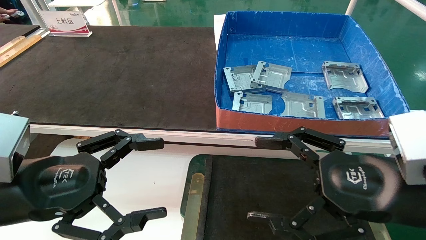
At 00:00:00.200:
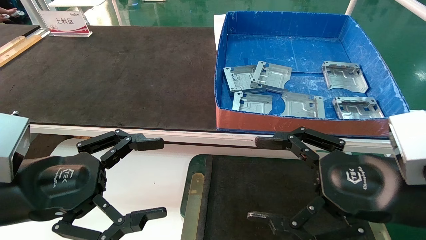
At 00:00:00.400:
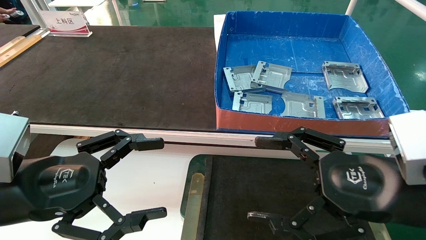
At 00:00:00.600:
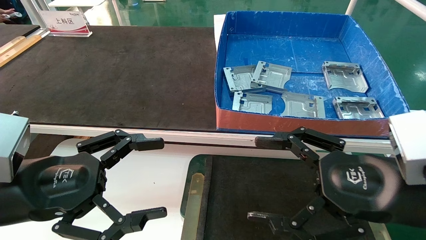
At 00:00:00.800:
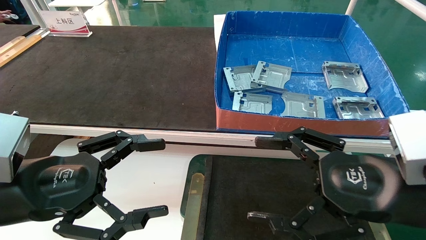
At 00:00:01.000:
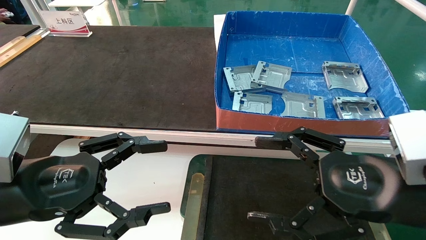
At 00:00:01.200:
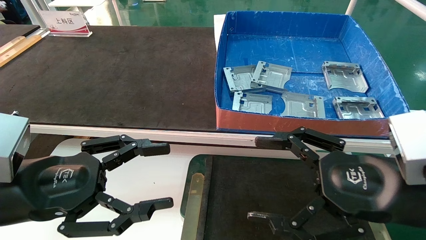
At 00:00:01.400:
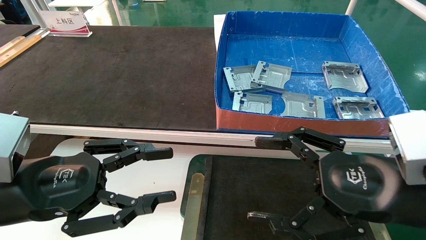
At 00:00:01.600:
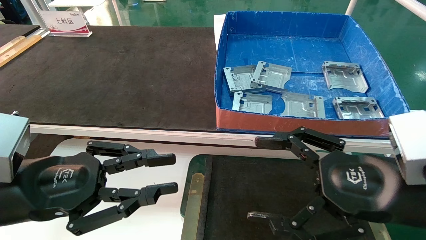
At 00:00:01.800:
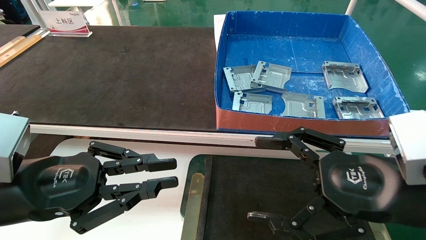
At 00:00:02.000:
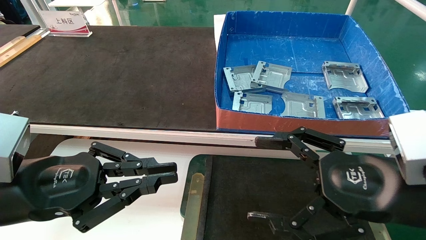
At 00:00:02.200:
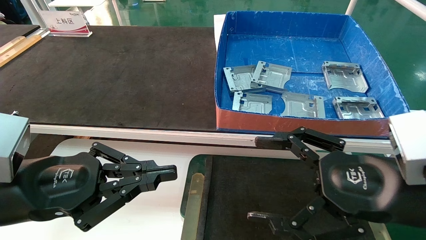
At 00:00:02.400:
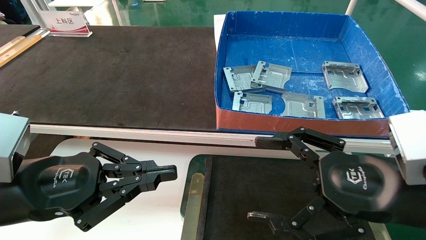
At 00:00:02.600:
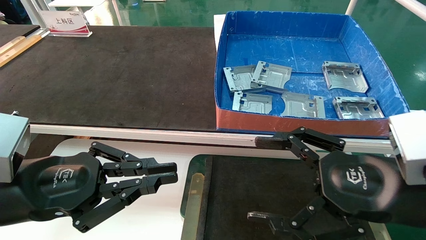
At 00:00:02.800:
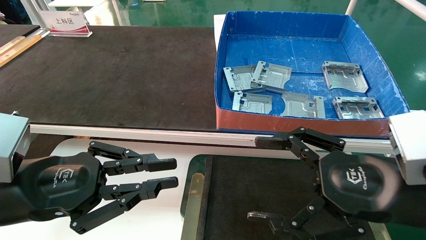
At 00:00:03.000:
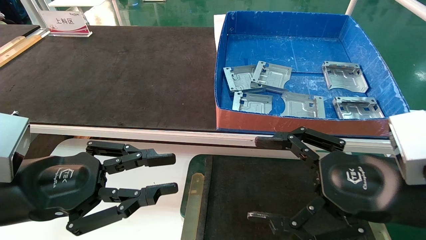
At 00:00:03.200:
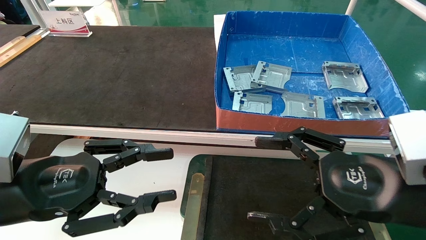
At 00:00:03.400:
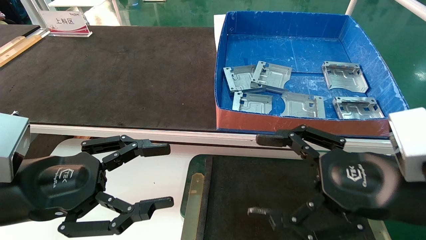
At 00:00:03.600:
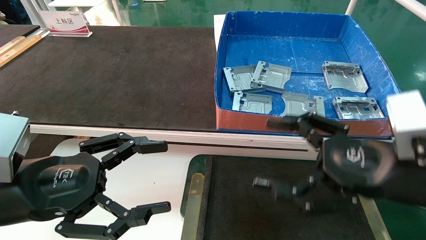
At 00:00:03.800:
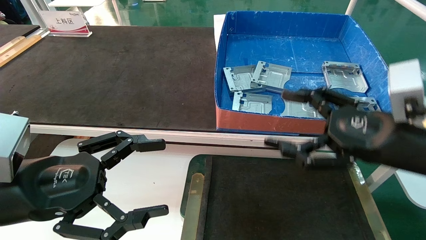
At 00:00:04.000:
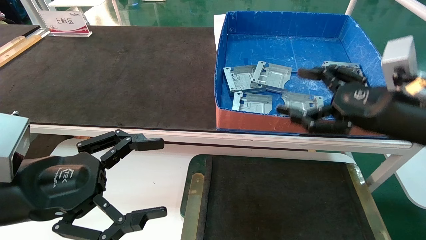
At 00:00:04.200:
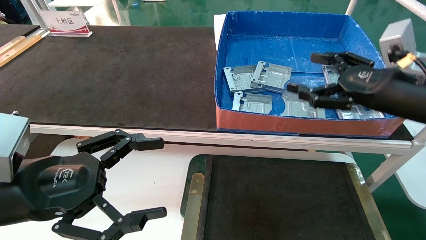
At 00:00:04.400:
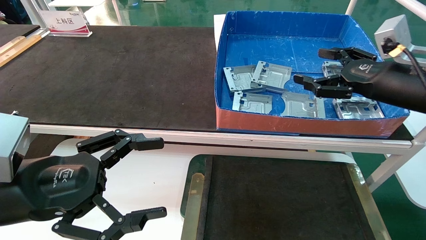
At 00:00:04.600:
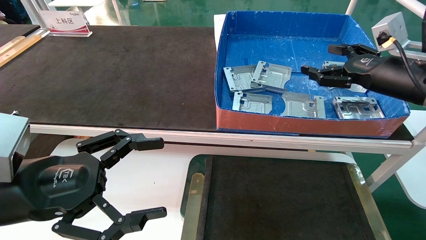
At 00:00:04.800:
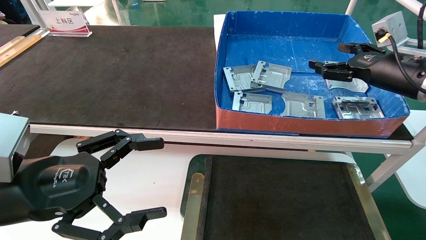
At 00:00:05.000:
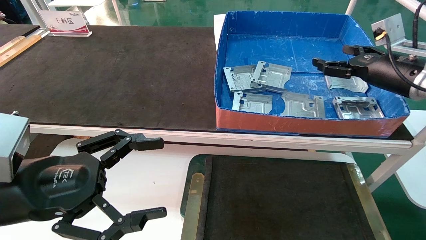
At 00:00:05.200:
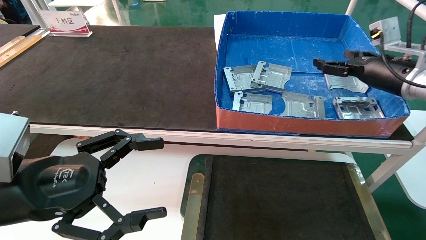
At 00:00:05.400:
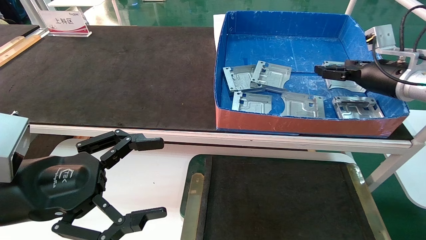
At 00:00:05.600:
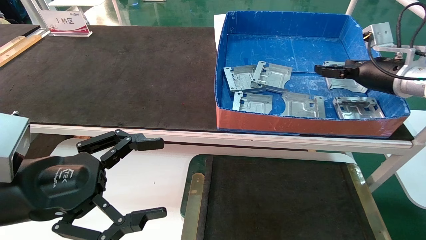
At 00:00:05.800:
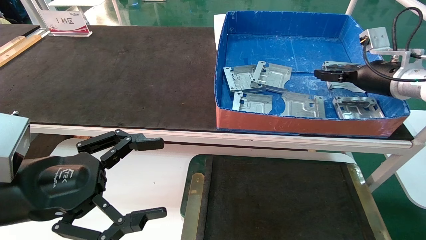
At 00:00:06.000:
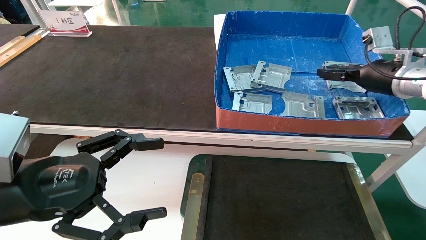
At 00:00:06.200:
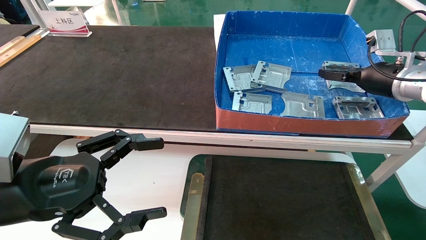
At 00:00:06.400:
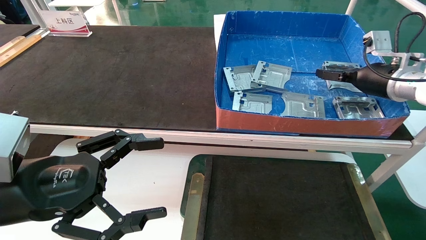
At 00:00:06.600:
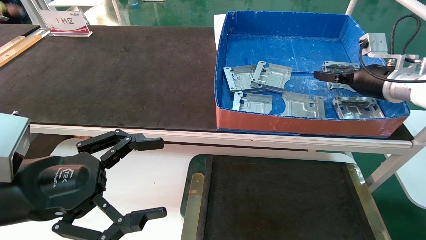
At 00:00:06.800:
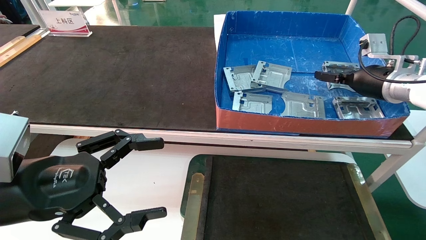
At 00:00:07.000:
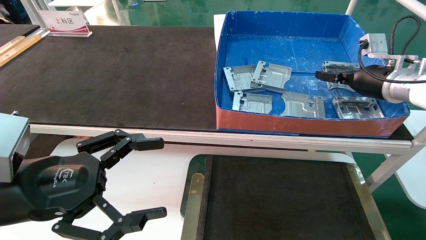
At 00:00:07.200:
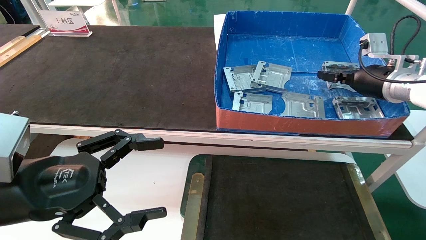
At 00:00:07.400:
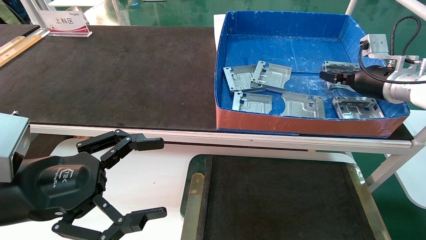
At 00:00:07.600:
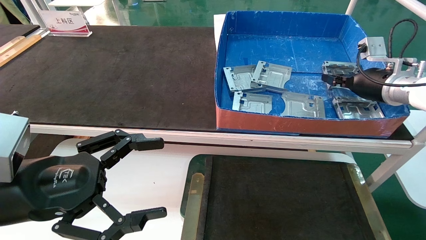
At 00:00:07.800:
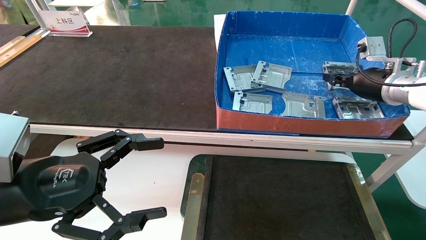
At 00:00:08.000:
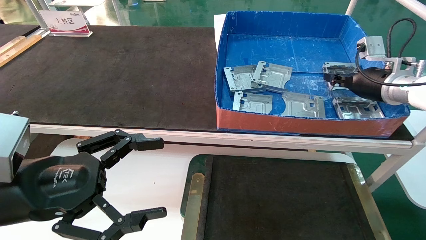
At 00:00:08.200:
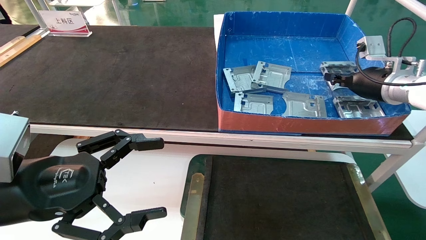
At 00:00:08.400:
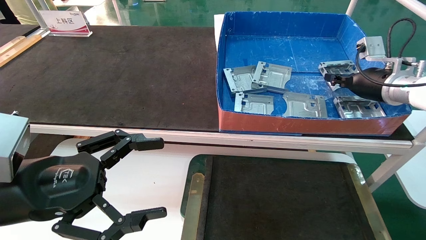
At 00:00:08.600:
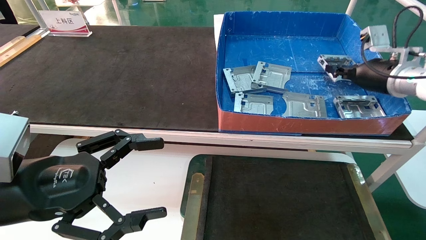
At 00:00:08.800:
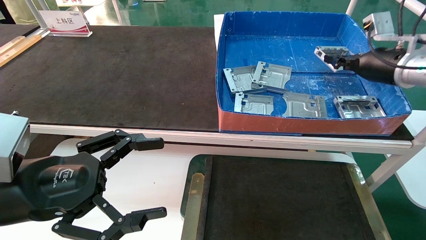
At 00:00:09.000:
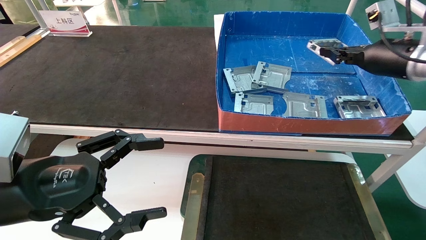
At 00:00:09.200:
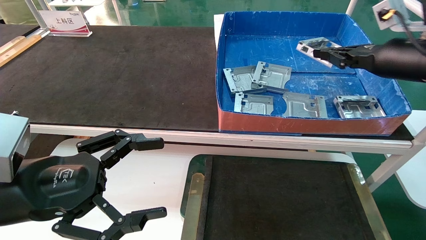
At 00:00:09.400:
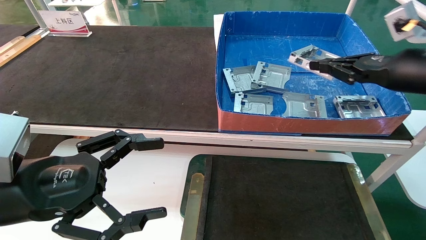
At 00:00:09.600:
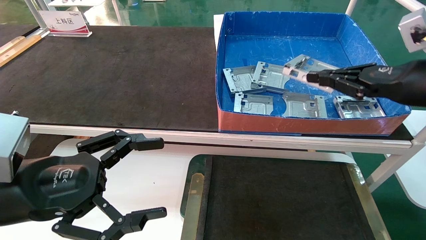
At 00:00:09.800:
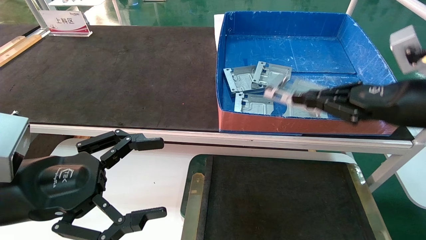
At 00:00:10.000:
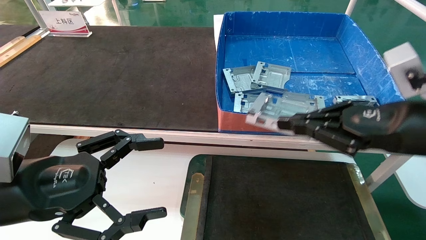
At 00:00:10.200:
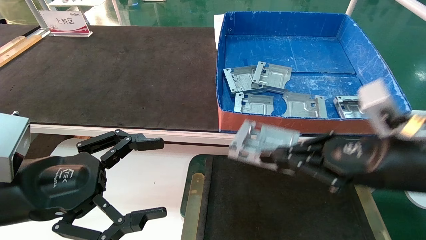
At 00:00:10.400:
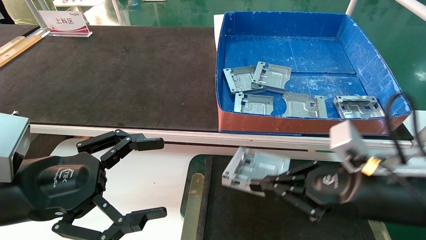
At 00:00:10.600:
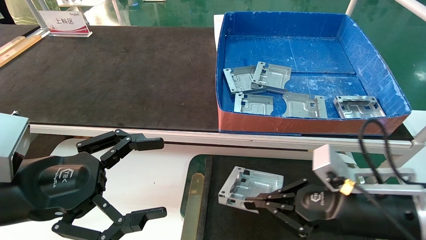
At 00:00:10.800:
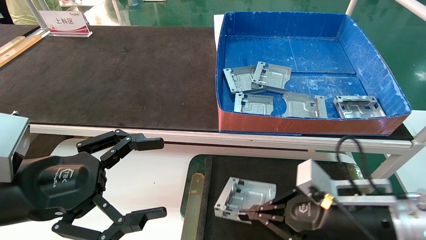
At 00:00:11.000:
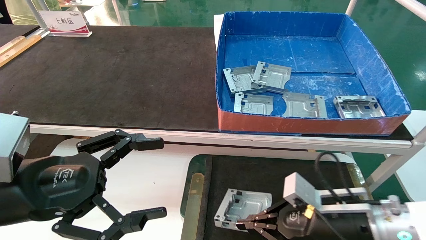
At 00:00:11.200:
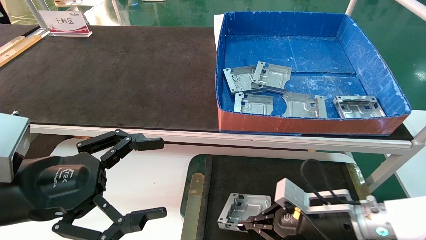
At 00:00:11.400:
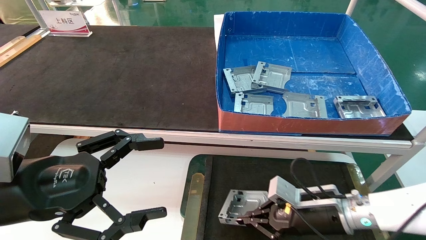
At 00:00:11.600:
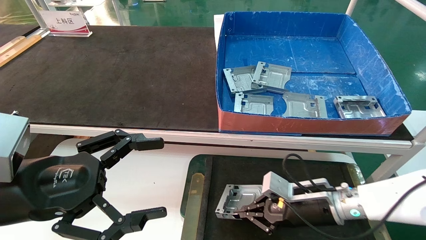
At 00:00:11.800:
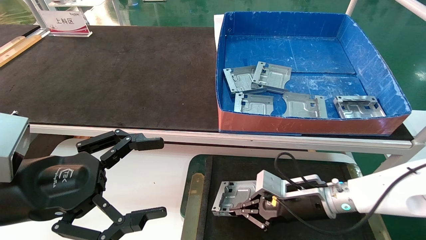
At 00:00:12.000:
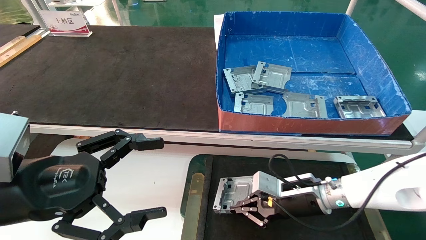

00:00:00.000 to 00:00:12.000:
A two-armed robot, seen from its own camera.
Task of the whole recording: pick up parts and place them into a black container.
Step, 00:00:03.800 to 00:00:08.200: Pick up the hard drive bracket from the feeding area.
00:00:00.000 to 00:00:01.600: The left gripper closes its fingers.
00:00:01.600 to 00:00:03.000: The two grippers keep their place.
00:00:03.000 to 00:00:04.400: The right gripper moves forward, to the right and upward, approximately 20 cm. The left gripper opens its fingers.
00:00:04.400 to 00:00:06.000: The right gripper goes roughly 10 cm forward.
00:00:06.000 to 00:00:07.600: The right gripper closes.
00:00:07.600 to 00:00:09.000: The right gripper goes some 5 cm upward and backward.
00:00:09.000 to 00:00:10.400: The right gripper shifts some 25 cm backward, downward and to the left.
00:00:10.400 to 00:00:12.000: The right gripper travels forward and downward by about 20 cm.

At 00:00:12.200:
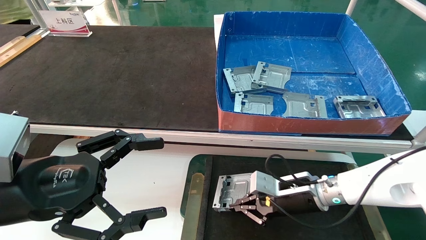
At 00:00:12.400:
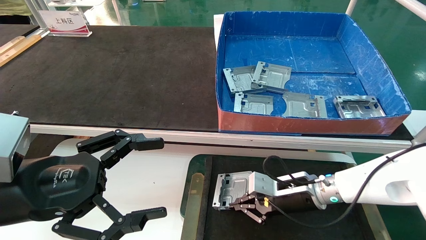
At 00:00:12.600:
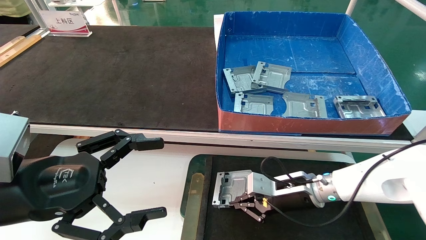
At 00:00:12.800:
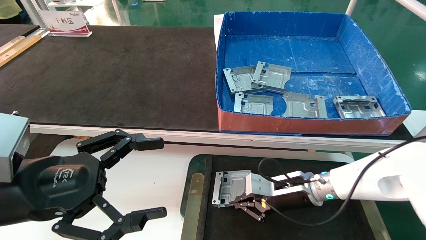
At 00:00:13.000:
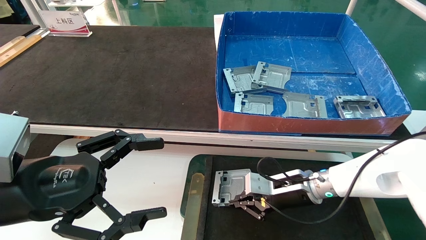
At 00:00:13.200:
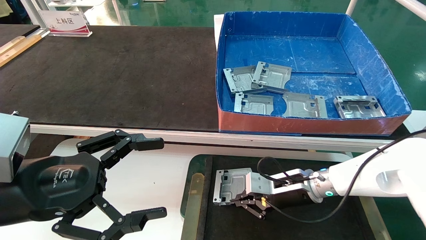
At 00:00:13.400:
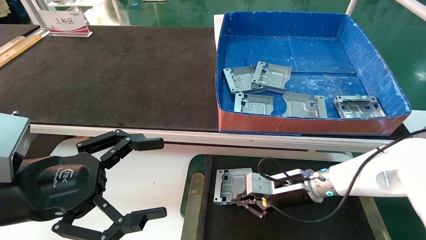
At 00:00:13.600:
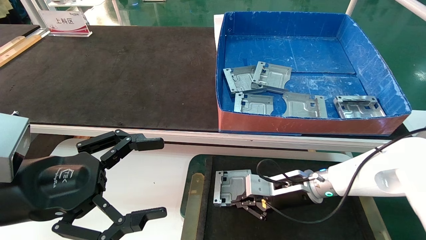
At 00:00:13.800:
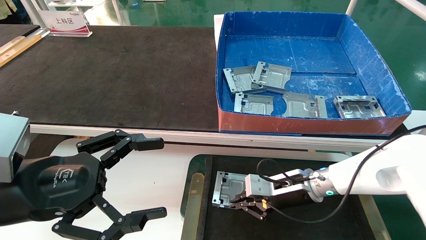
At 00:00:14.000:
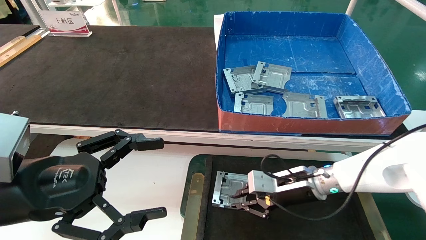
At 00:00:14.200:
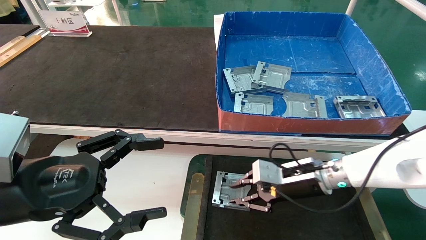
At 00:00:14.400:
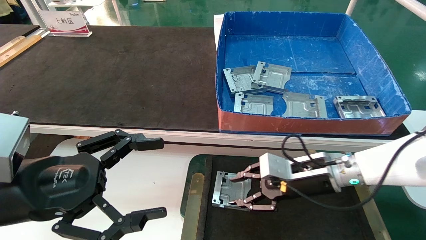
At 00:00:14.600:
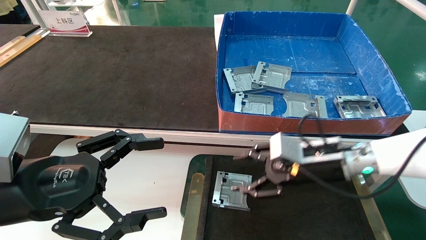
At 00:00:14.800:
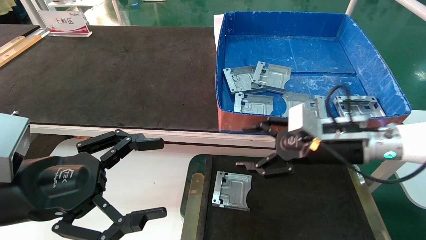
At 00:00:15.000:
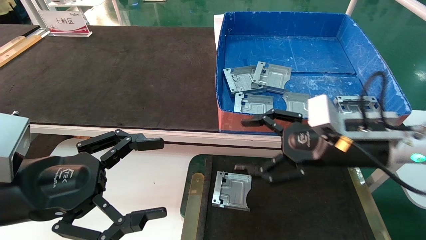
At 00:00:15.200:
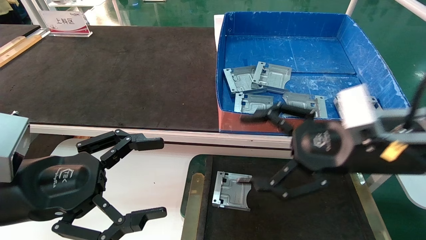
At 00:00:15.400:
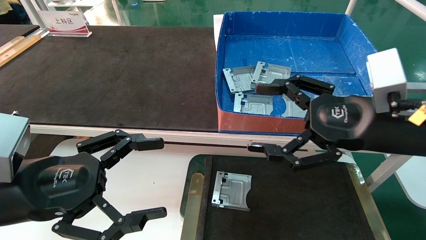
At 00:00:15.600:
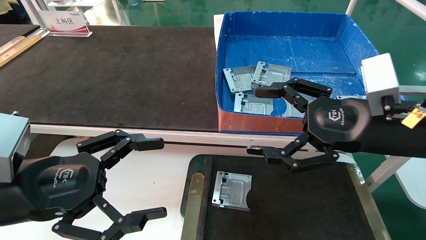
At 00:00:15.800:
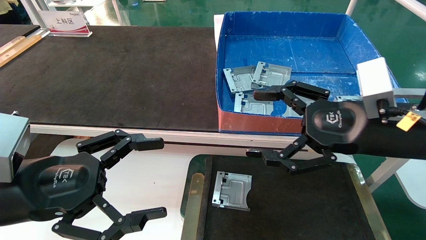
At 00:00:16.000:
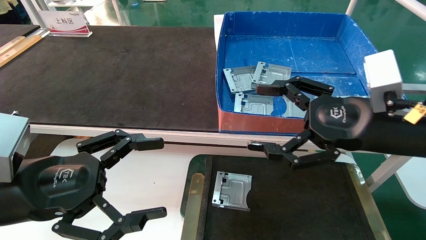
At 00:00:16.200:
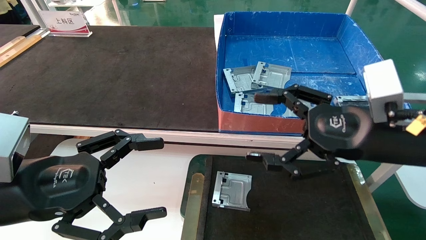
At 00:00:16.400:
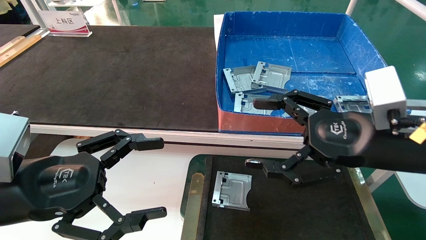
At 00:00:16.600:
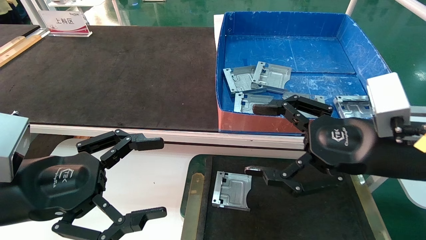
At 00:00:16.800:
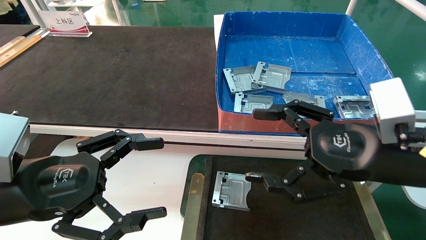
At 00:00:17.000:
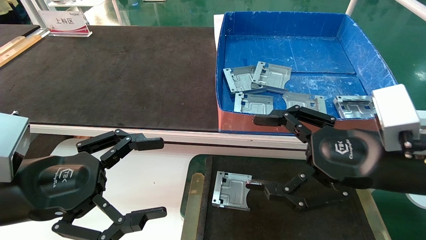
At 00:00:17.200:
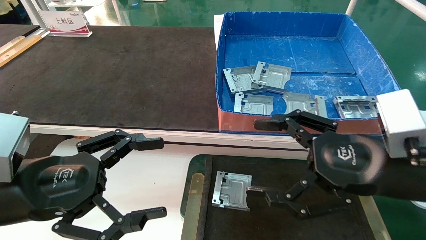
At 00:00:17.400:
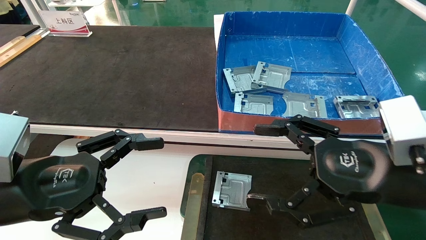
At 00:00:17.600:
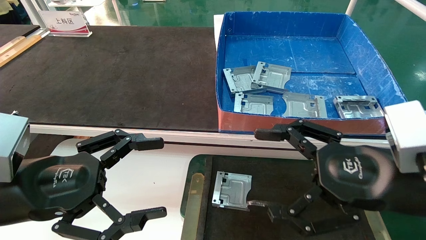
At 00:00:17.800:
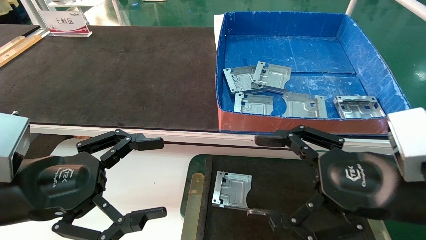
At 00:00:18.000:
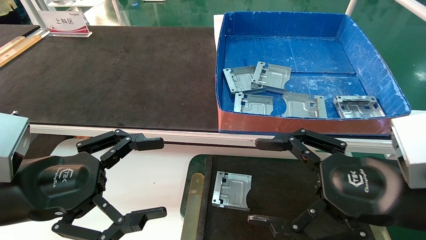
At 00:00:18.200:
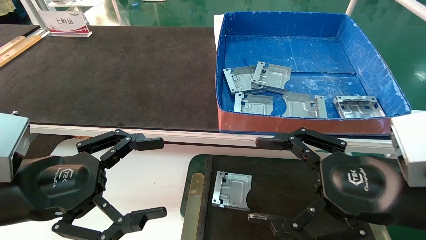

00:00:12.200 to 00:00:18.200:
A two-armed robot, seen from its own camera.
Task of the whole recording: pick up parts and place them into a black container.
00:00:12.200 to 00:00:13.800: There are only small adjustments of the grippers.
00:00:13.800 to 00:00:15.200: The right gripper shifts roughly 20 cm upward and backward, and opens.
00:00:15.200 to 00:00:16.600: There are only small adjustments of the grippers.
00:00:16.600 to 00:00:18.200: The right gripper shifts roughly 5 cm backward.
